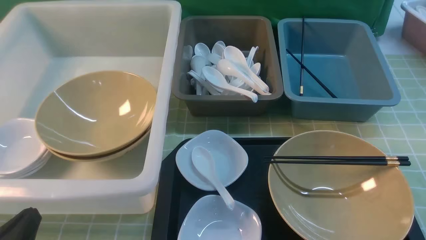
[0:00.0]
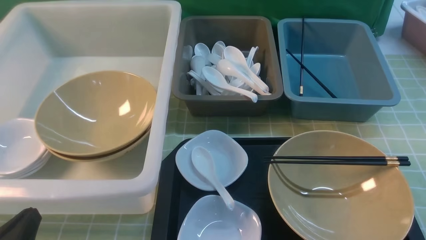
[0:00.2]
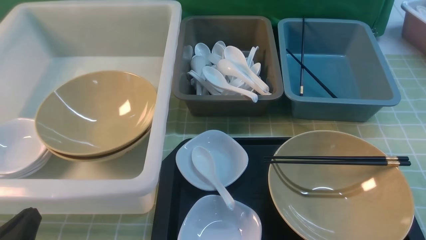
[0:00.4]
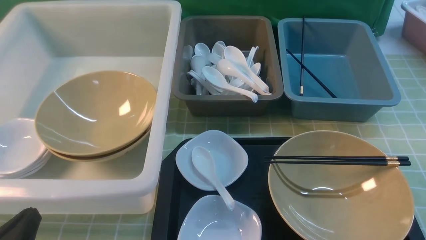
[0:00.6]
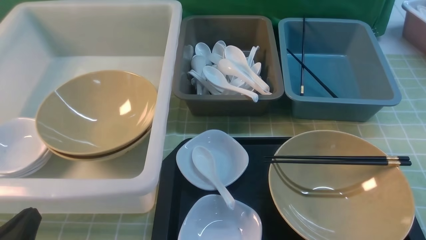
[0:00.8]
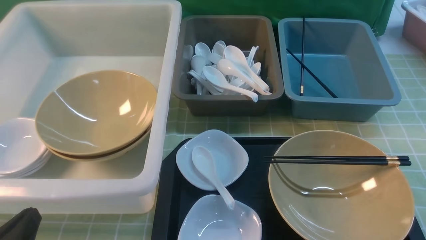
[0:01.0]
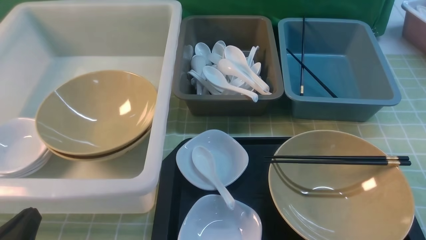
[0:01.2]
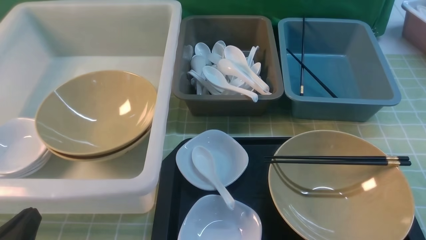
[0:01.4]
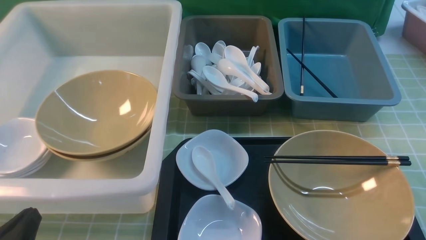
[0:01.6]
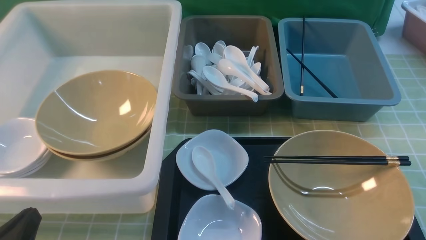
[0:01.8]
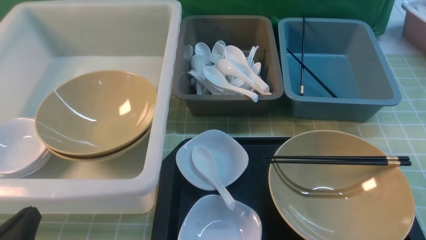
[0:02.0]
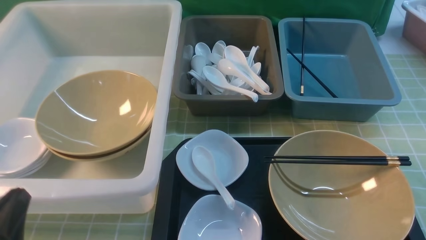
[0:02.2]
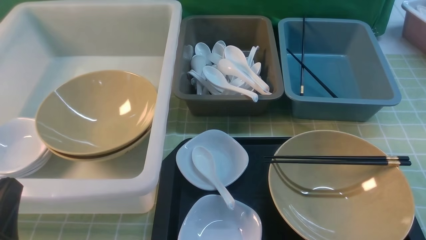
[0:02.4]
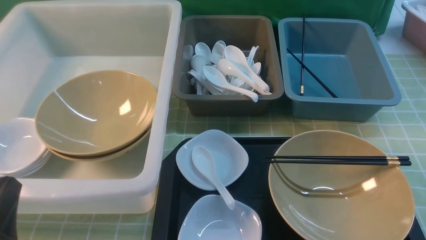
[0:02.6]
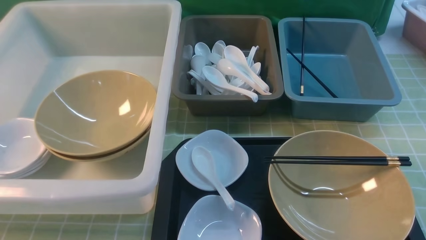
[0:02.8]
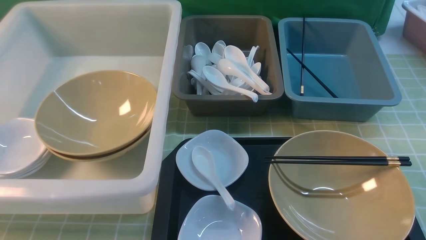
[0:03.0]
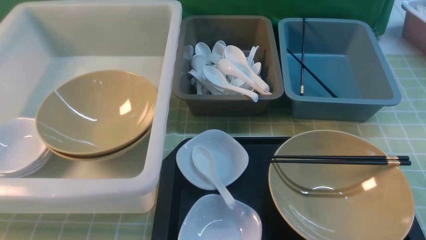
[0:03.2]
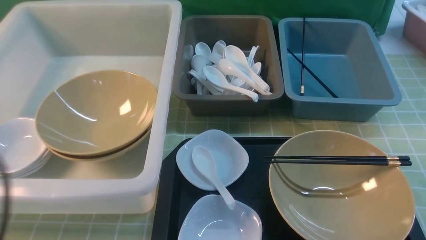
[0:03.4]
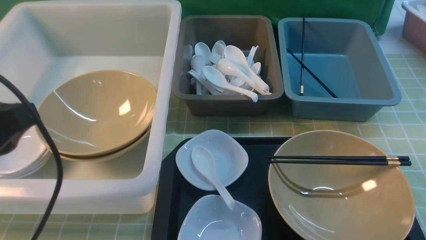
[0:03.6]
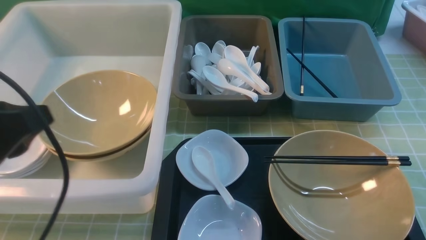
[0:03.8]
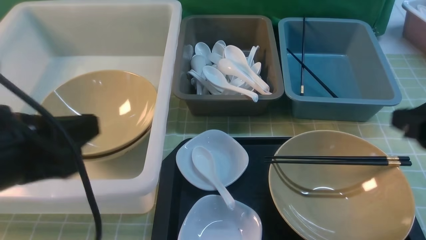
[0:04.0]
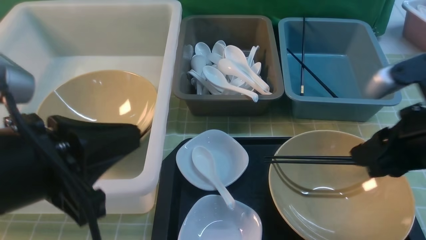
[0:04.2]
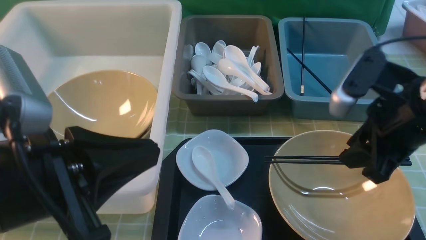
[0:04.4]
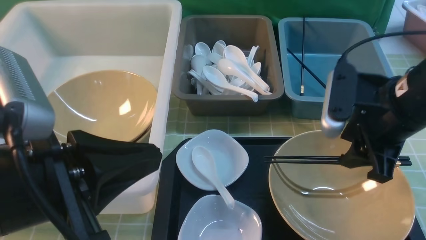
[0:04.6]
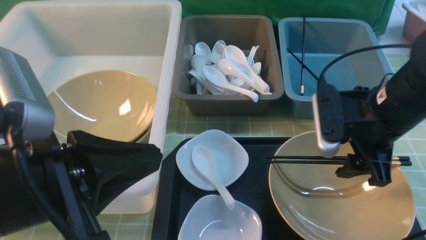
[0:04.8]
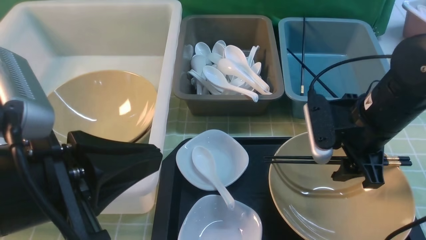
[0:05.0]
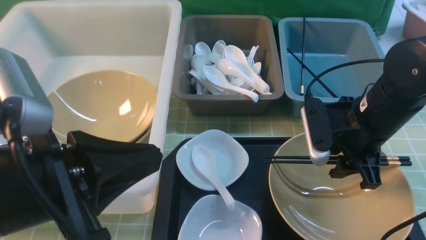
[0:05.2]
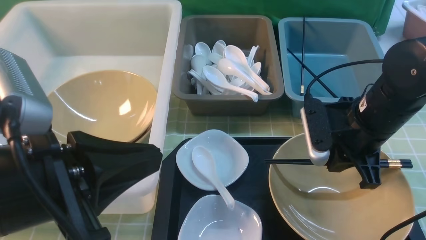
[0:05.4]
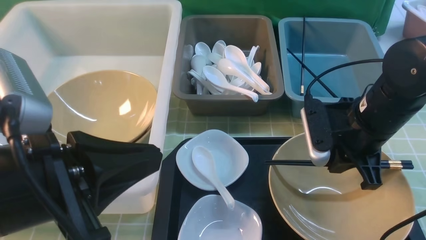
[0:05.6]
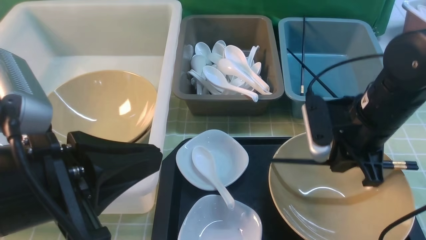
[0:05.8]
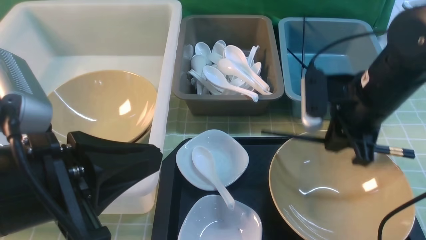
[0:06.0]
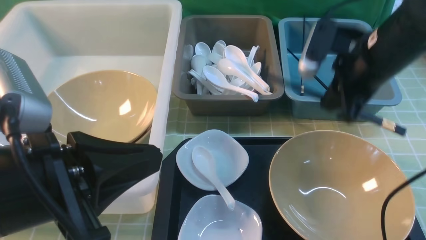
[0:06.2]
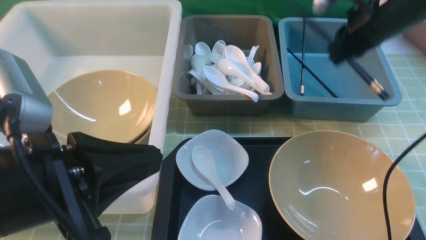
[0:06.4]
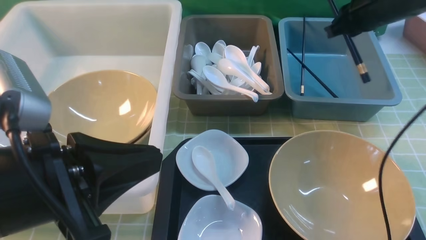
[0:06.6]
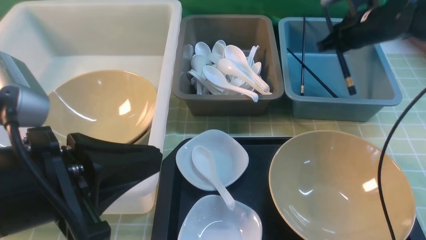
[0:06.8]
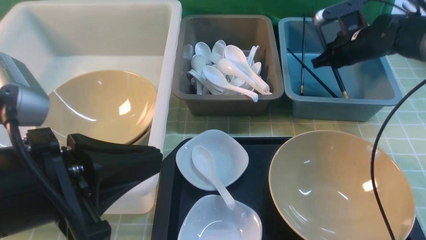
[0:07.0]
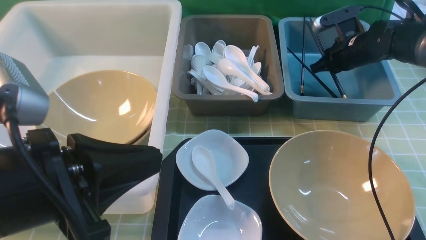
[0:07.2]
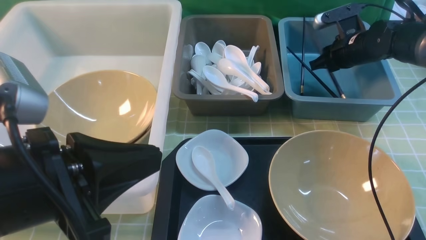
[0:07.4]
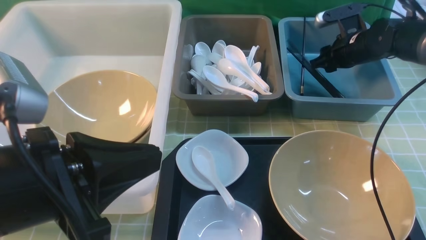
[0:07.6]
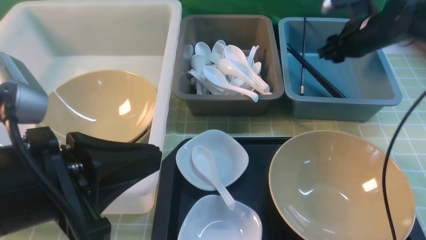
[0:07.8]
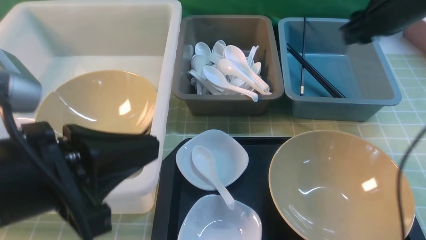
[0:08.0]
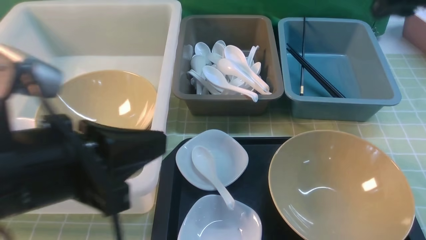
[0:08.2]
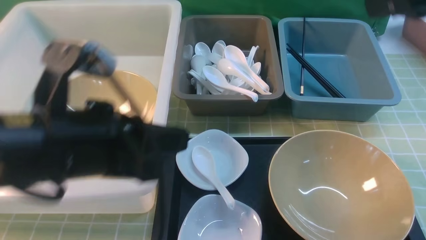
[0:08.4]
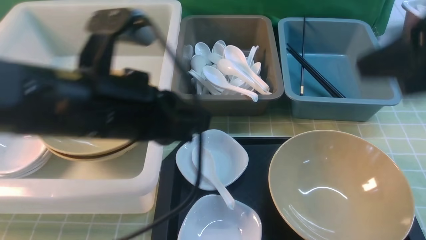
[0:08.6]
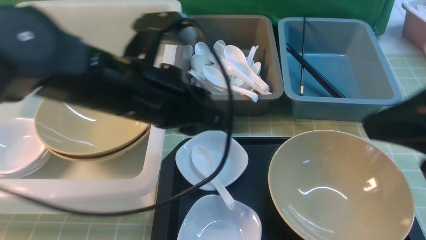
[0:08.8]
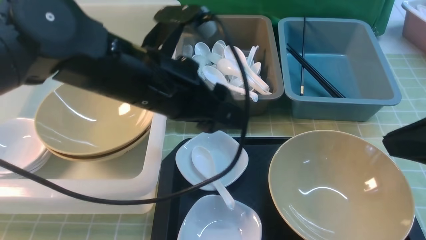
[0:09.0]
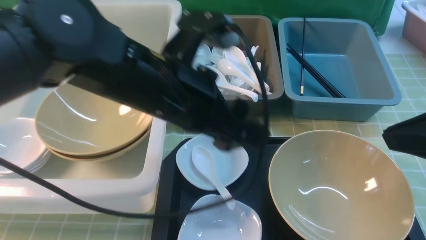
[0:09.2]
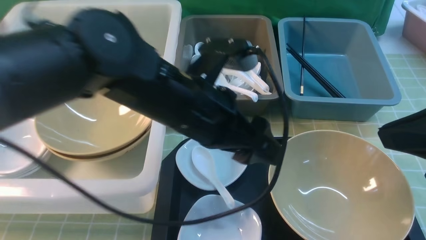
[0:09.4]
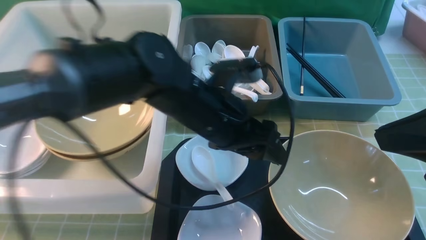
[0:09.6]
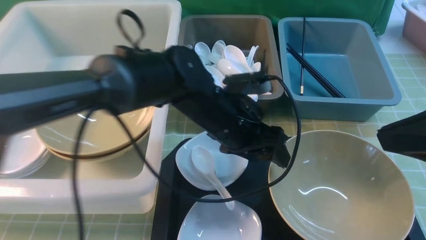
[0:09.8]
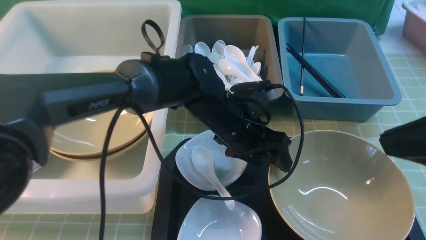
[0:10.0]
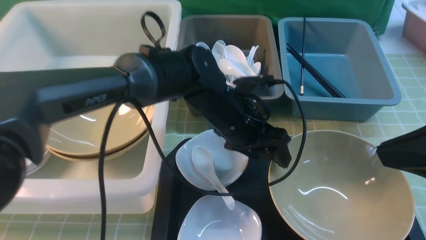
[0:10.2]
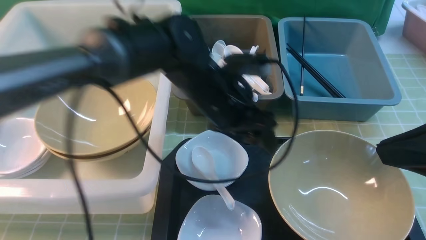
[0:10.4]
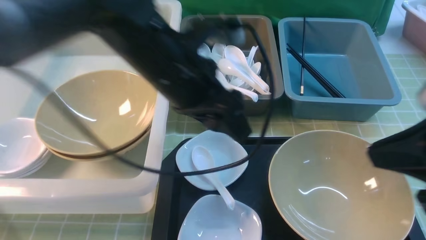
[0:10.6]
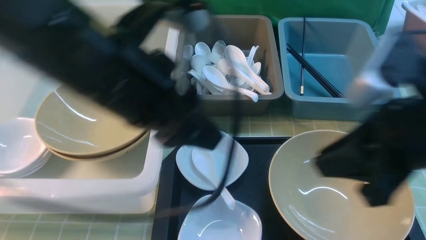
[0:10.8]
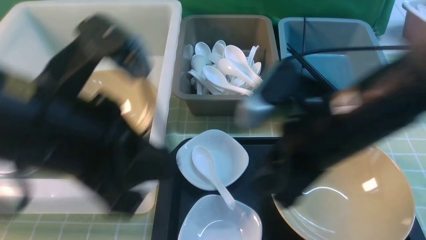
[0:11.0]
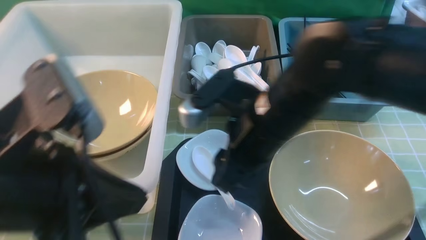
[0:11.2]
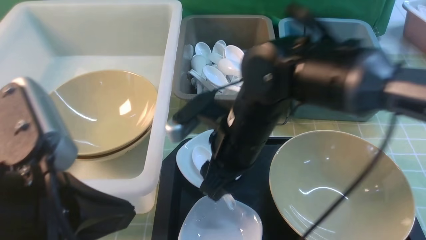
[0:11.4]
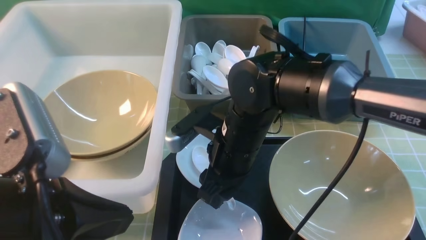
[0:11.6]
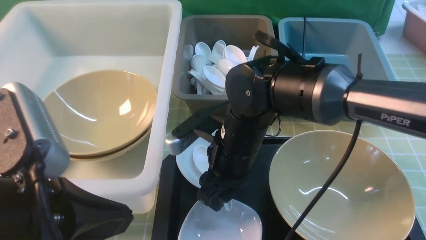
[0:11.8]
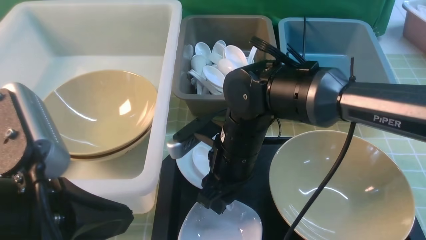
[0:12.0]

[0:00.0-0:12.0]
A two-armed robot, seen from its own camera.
Task of the whole recording: on green table put chopsticks spoon bowls plates into blue grey white boxes.
Step, 0.0 to 6.0 s: use the right arm to grab the chopsticks.
Step, 6.2 to 7.8 s: use the right arm to put the chopsticks into the small storage box on the right.
0.0 to 1.6 s: Neither gripper changes place.
1.6 to 3.0 s: The left gripper shifts roughly 15 cm upward.
3.0 to 4.4 s: The right gripper goes some 20 cm forward and to the left; the left gripper heads to the right and forward, covering approximately 10 cm.
4.4 to 6.0 s: The right gripper goes some 10 cm forward, and closes up.
6.0 to 7.6 s: The right gripper travels forward and to the right by approximately 20 cm, and opens.
7.6 to 9.0 s: The right gripper shifts about 35 cm backward and upward, and closes its fingers. The left gripper is displaced forward and to the right by roughly 15 cm, and opens.
9.0 to 10.4 s: The left gripper goes approximately 10 cm forward, to the right and downward.
10.4 to 12.0 s: The left gripper shifts approximately 25 cm backward and to the left, and closes, while the right gripper travels to the left, downward and forward by approximately 30 cm, and opens.

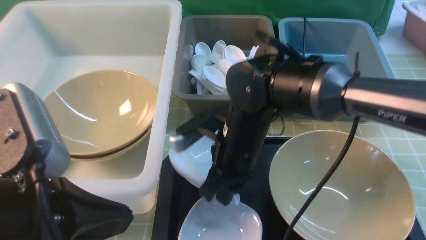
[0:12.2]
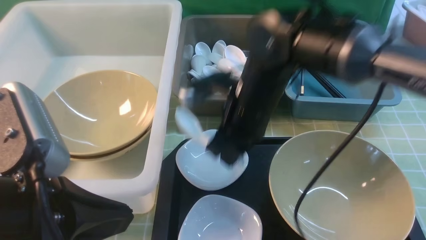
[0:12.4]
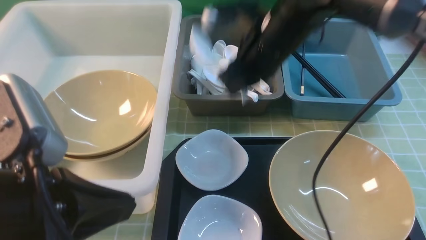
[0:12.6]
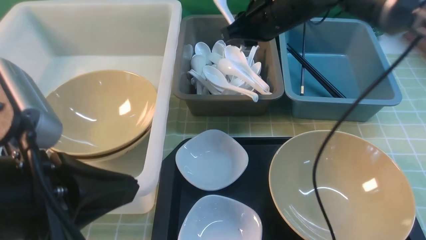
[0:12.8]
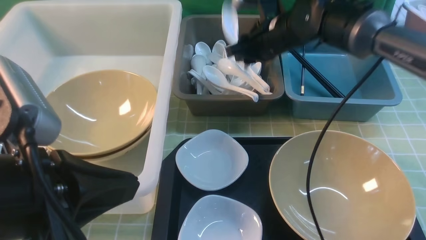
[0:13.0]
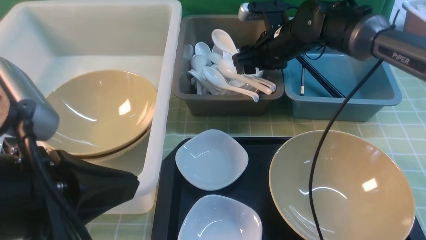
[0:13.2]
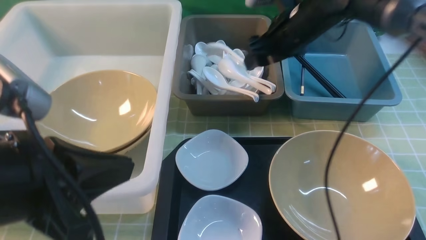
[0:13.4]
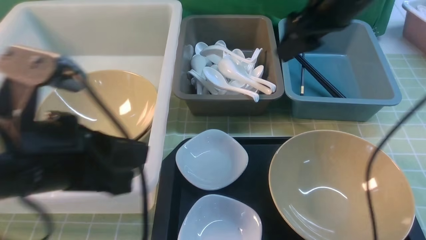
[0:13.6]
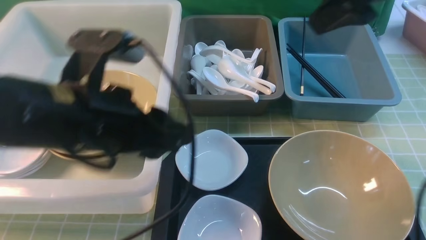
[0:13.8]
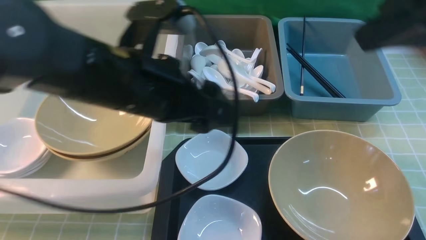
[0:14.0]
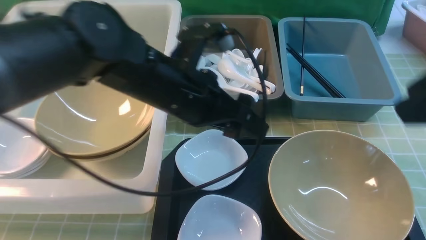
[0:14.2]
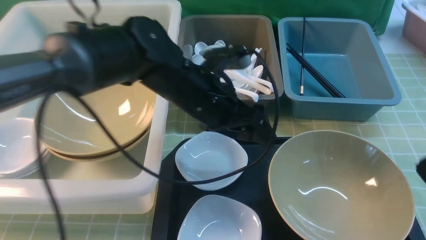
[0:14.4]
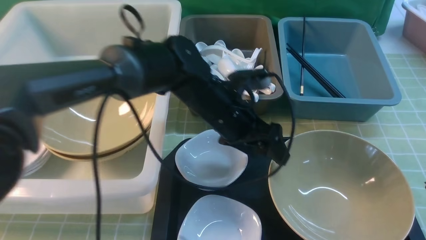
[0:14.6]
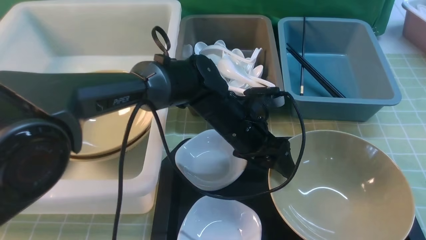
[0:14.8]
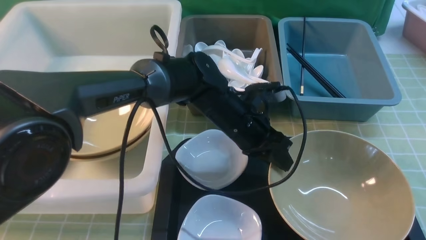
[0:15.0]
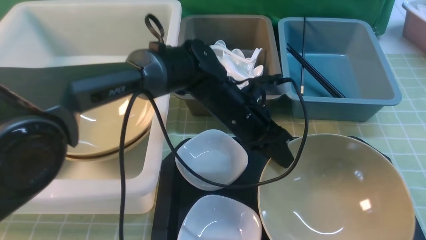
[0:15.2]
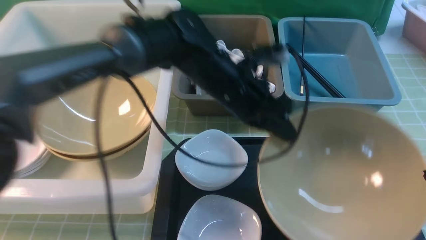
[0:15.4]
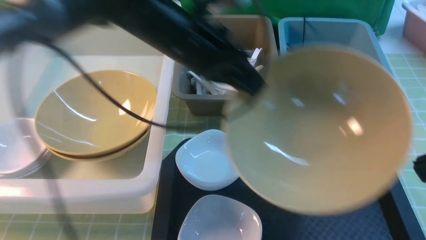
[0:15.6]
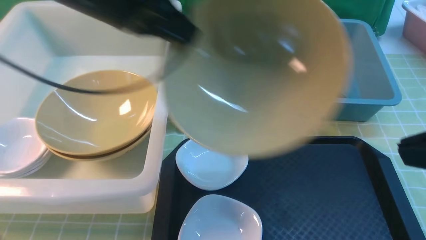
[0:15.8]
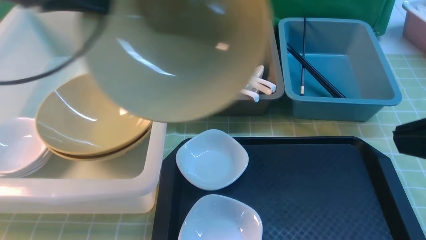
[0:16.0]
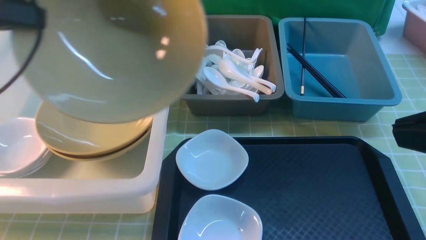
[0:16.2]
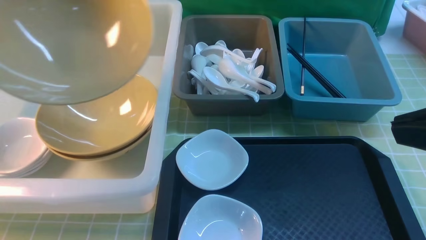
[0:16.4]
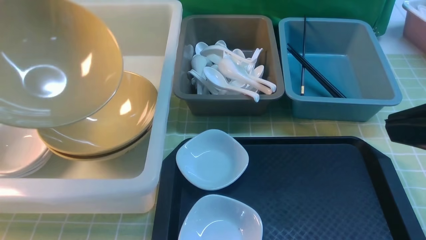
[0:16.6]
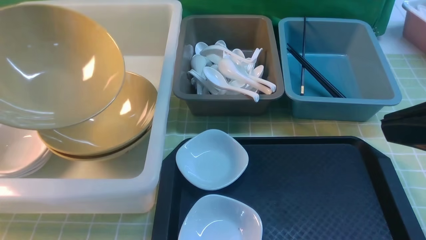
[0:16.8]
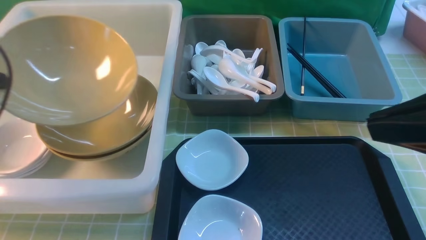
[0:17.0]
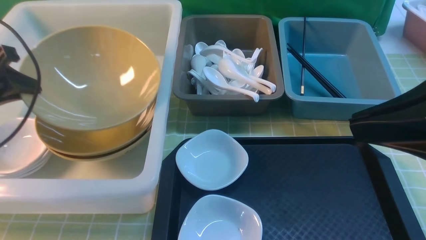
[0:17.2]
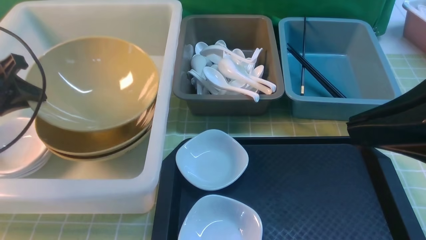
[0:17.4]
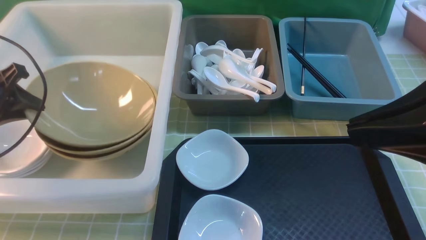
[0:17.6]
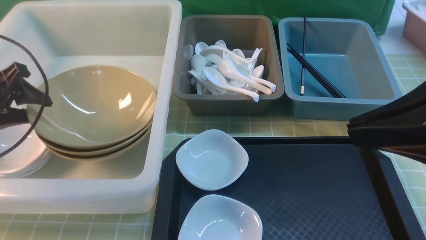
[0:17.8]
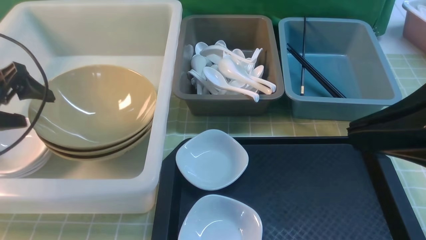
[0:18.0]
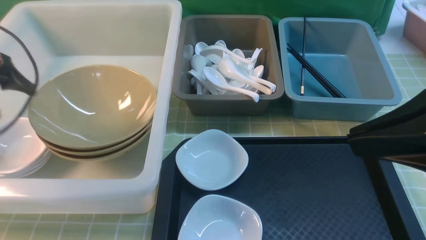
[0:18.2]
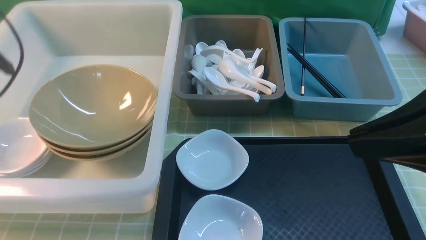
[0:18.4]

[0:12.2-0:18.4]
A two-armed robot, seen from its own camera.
Task of the whole recording: on green table put chopsticks spoon bowls plates into blue grey white boxes.
Step, 12.6 to 14.0 s: use the right arm to put the soup spoon into the small storage box in the middle.
Step, 14.2 to 15.4 s: use the left arm to grab the yellow noodle bowl on the left.
Step, 15.6 to 18.0 s: use the left arm to put the noodle bowl into the large storage box on the left.
12.2 to 13.8 s: The left gripper heads forward and to the right, covering some 10 cm, and opens its fingers. Meanwhile the right gripper swings up and down, about 20 cm each way, with 2 reversals, and opens its fingers.
13.8 to 15.4 s: The left gripper heads forward, to the right and downward, covering approximately 20 cm, and closes, while the right gripper shifts approximately 20 cm backward and downward, and closes its fingers.
15.4 to 16.8 s: The left gripper shifts about 35 cm to the left.
16.8 to 18.4 s: The left gripper travels forward by approximately 5 cm, reaches about 10 cm downward, then returns, and opens up.
